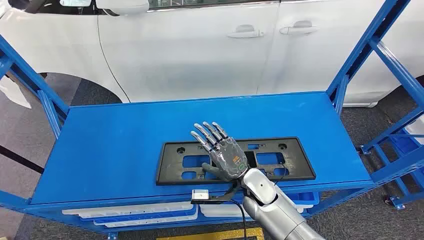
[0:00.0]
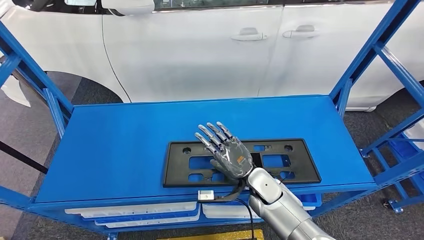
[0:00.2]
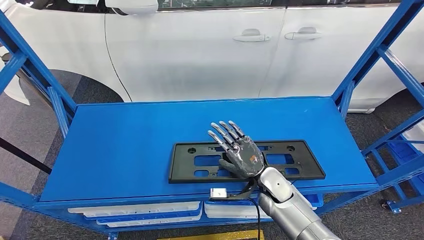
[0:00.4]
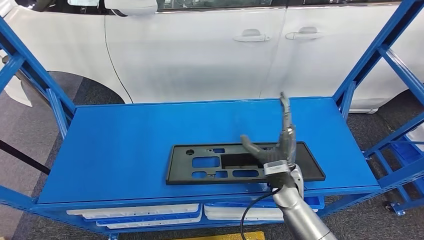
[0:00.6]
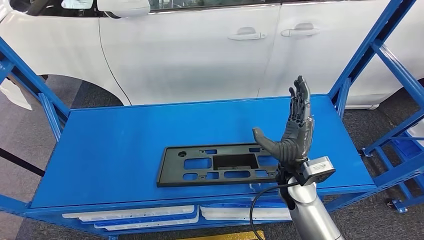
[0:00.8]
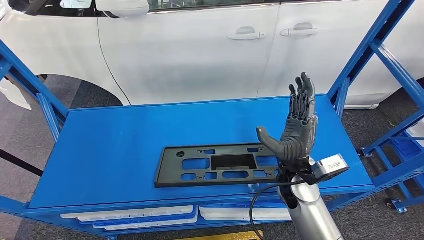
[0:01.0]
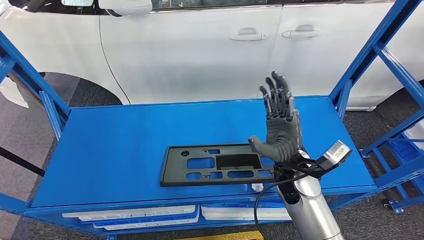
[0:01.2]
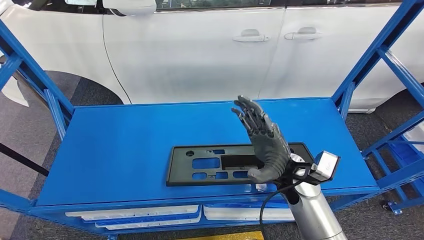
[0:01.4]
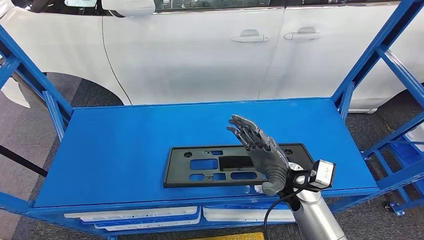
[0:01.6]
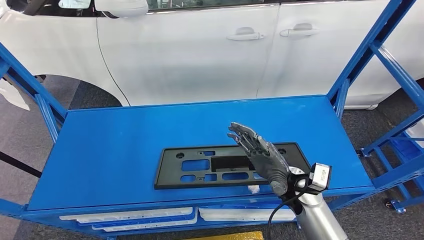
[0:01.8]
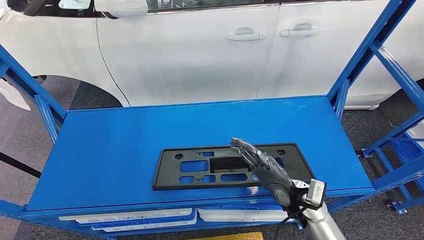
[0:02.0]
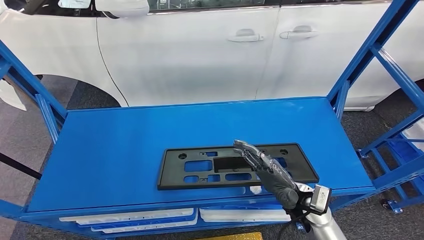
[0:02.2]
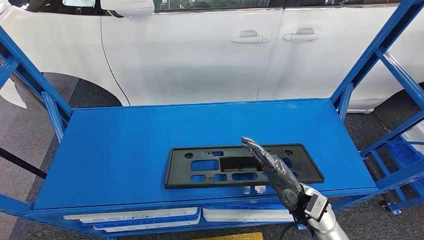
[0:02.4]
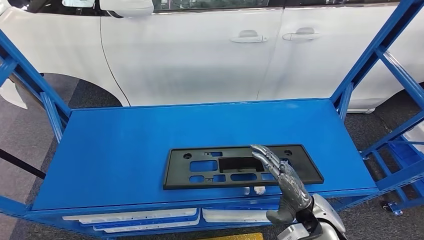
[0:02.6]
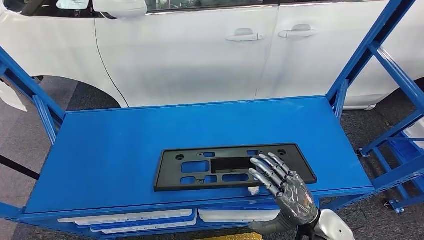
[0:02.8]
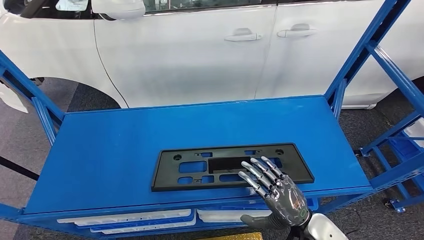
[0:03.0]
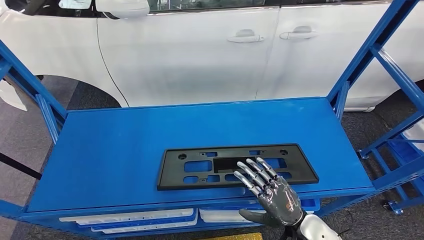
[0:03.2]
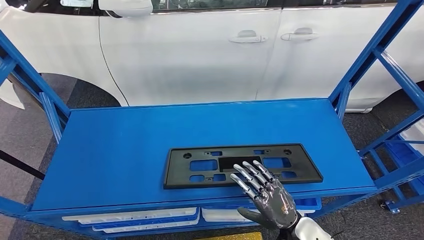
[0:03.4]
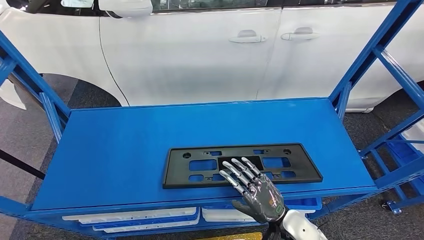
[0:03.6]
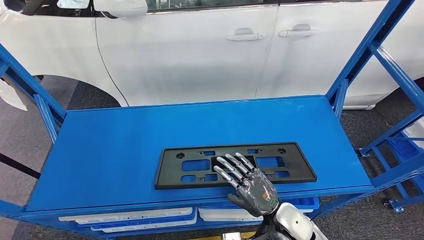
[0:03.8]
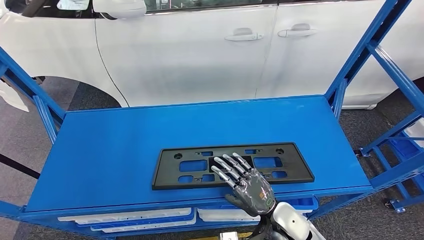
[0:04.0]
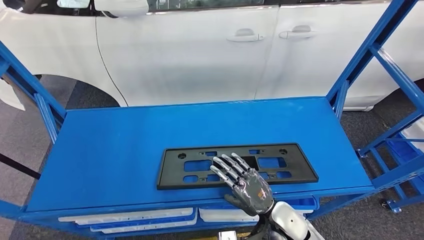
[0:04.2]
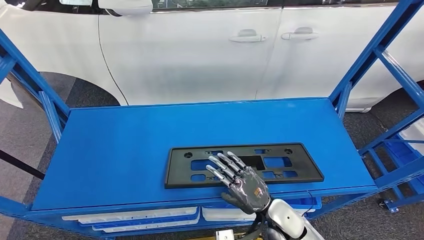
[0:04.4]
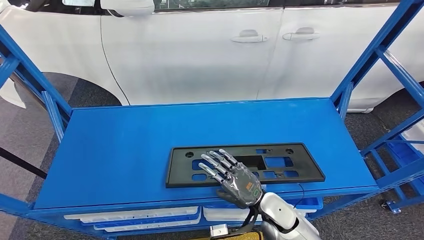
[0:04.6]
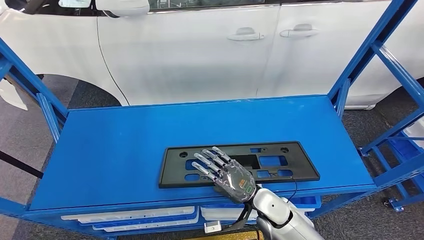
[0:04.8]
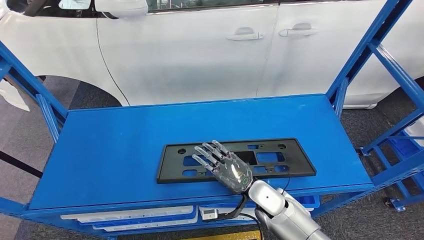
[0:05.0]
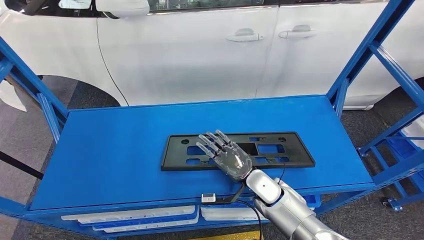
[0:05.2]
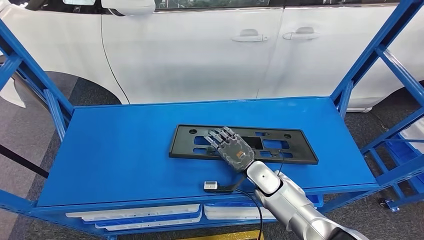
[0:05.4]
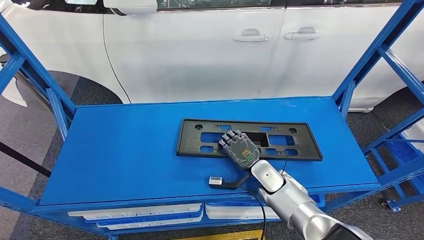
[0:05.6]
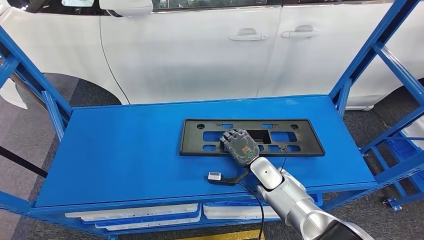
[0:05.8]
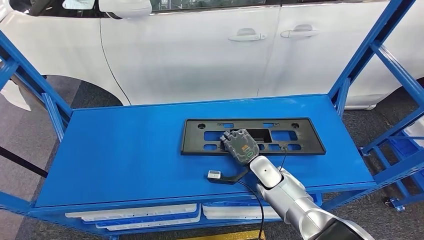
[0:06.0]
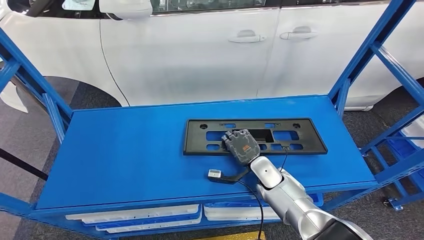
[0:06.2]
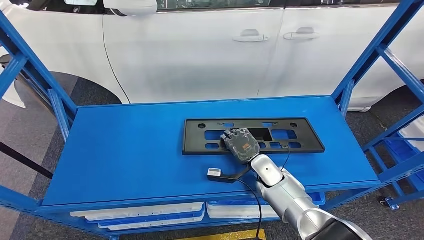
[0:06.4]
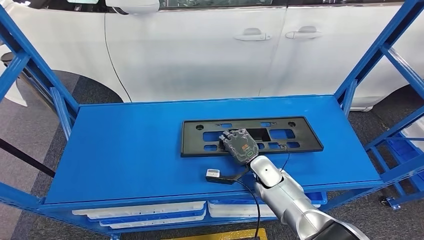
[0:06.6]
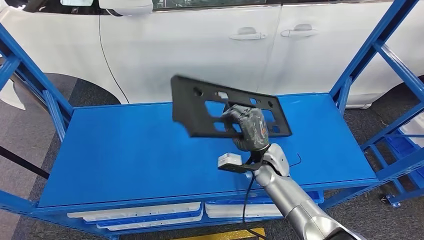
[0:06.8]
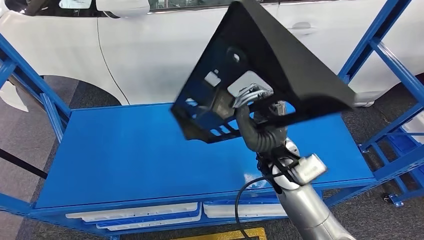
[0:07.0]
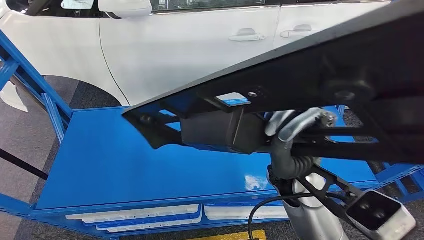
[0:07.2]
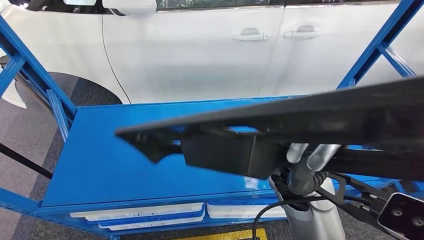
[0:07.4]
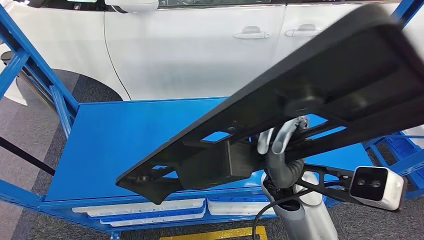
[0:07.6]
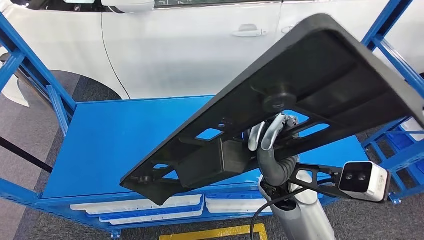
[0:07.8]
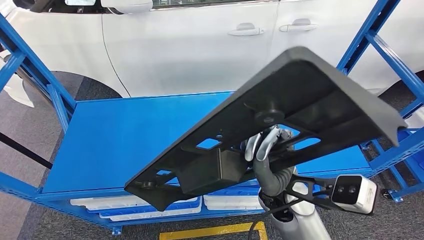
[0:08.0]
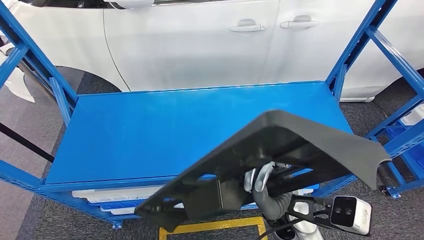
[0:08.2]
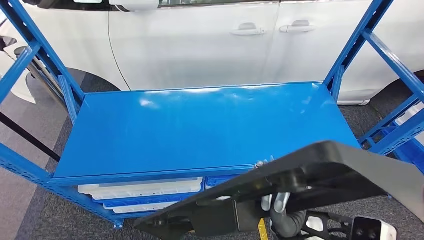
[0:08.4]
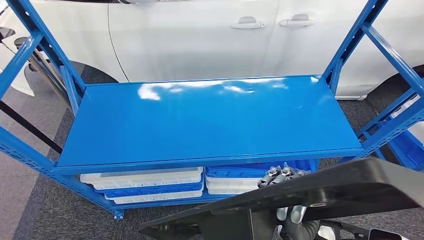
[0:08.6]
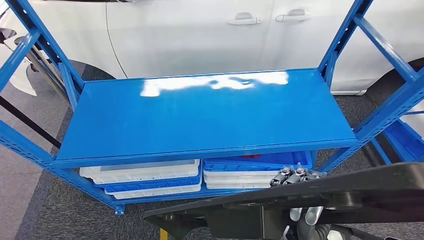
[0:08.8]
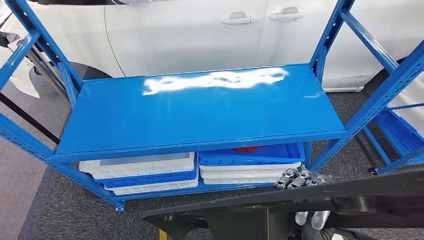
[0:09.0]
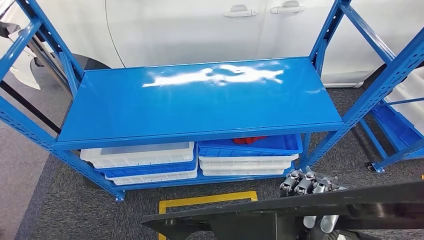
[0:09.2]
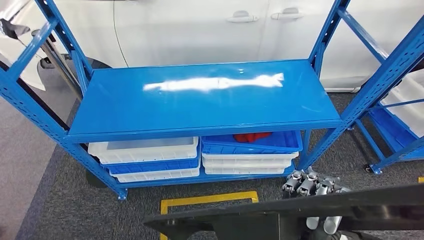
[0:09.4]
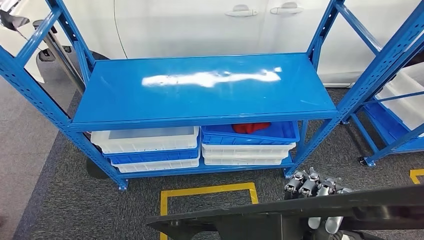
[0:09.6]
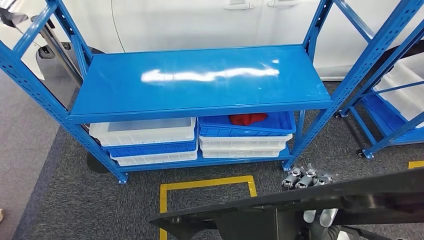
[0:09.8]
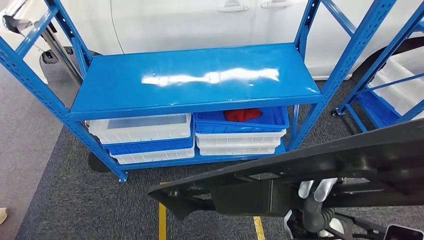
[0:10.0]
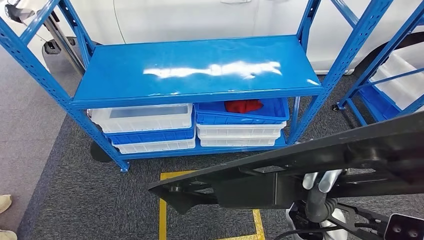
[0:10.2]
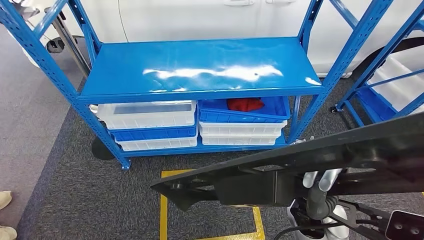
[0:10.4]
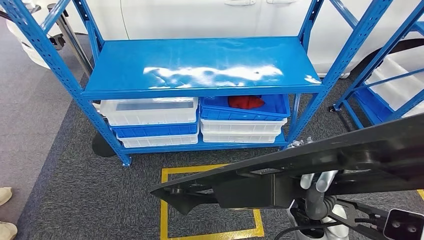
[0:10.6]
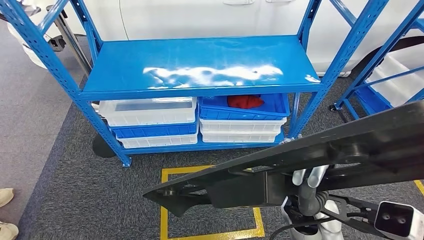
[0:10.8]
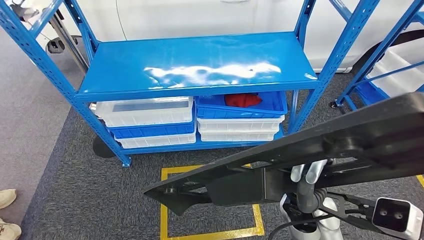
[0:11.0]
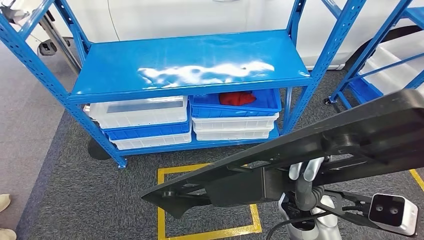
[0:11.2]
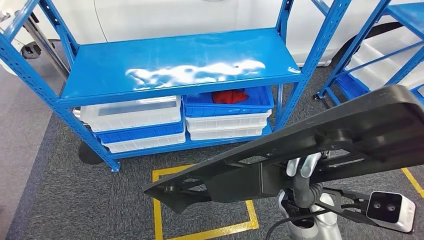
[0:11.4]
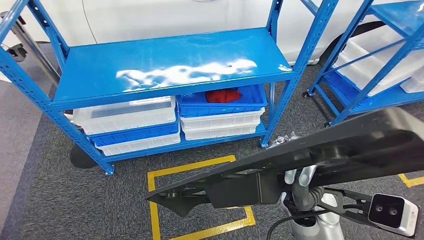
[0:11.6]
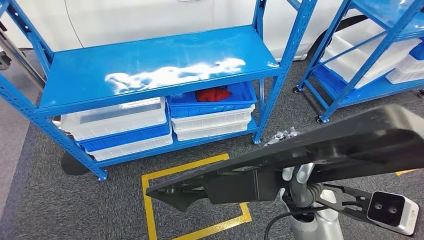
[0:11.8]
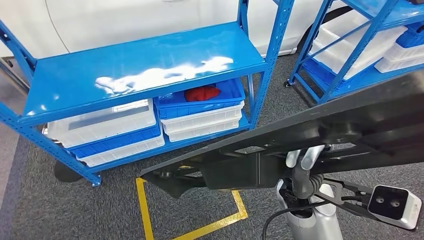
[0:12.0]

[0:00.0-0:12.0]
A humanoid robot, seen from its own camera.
Step, 0:00.0 to 0:09.0: Pick up the large material from the shelf.

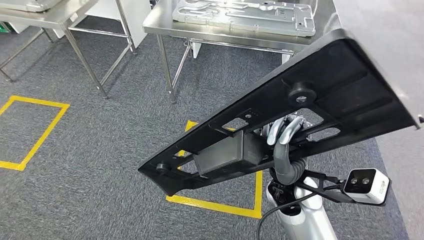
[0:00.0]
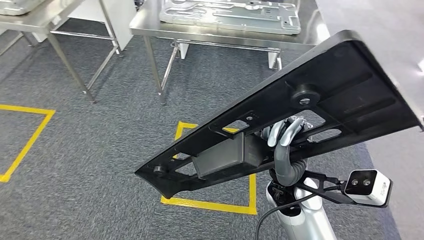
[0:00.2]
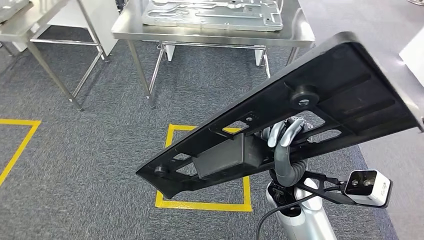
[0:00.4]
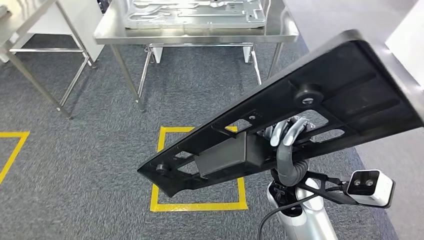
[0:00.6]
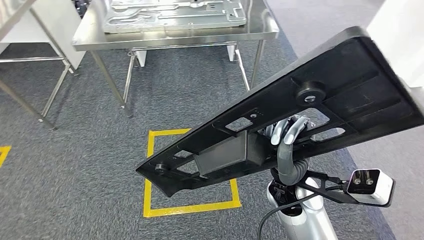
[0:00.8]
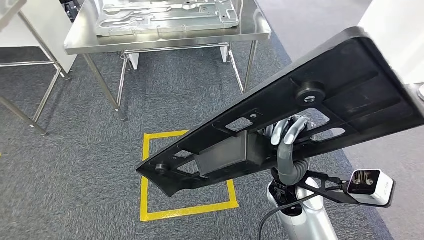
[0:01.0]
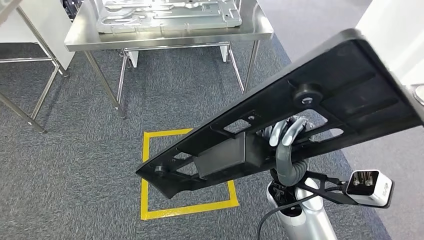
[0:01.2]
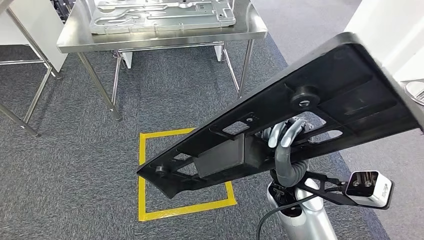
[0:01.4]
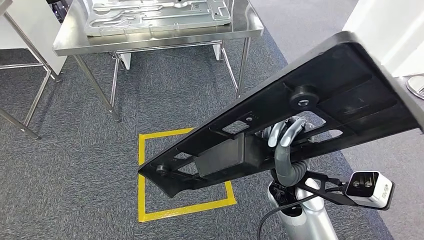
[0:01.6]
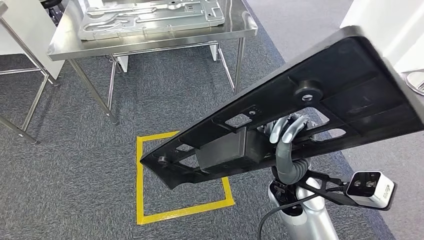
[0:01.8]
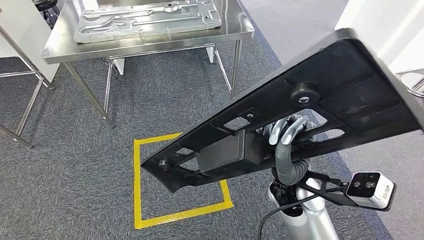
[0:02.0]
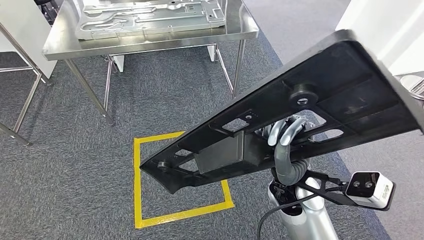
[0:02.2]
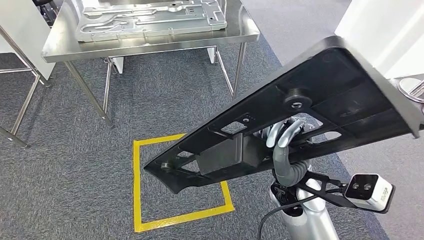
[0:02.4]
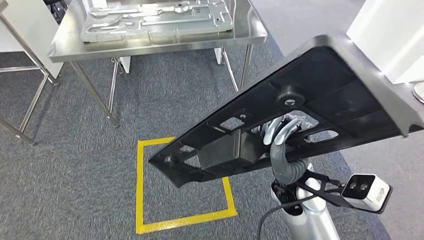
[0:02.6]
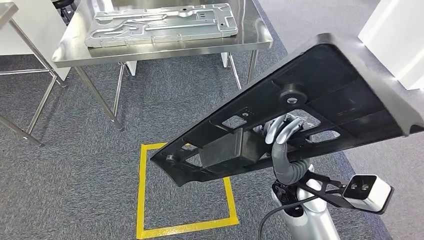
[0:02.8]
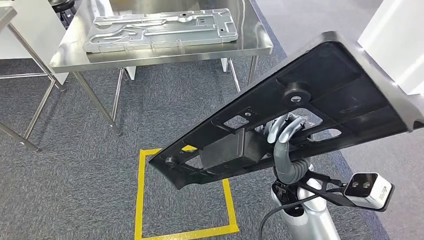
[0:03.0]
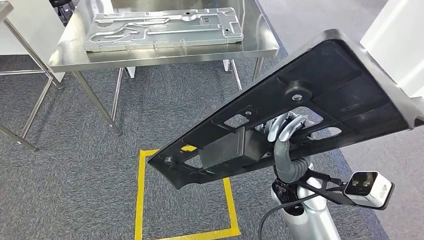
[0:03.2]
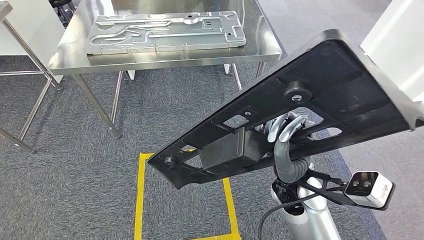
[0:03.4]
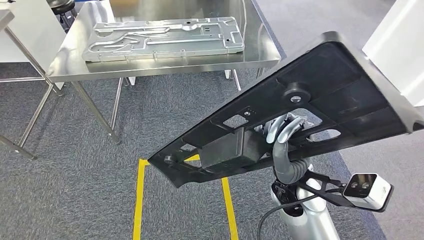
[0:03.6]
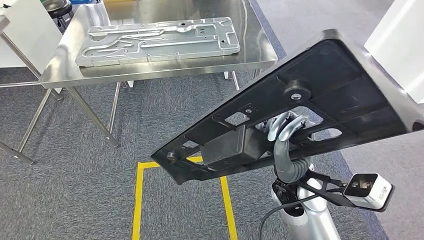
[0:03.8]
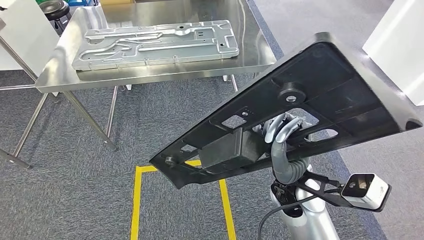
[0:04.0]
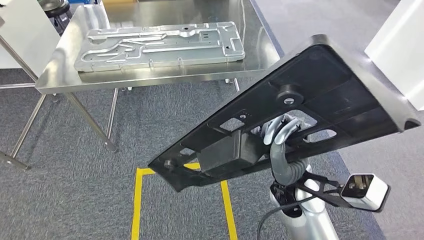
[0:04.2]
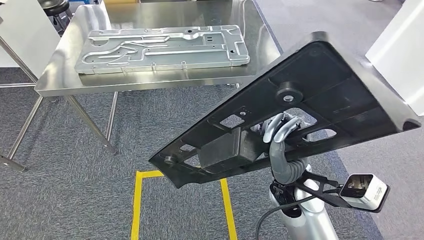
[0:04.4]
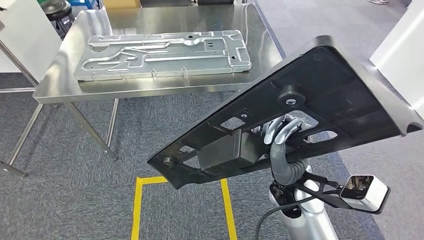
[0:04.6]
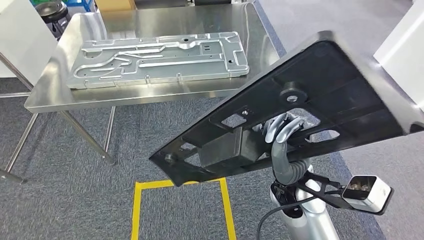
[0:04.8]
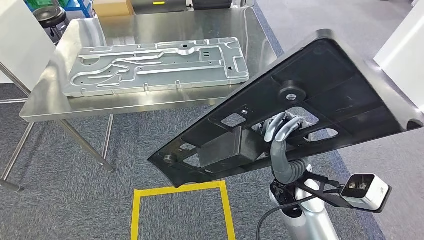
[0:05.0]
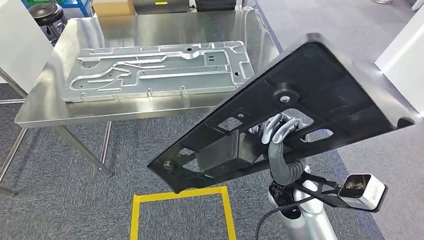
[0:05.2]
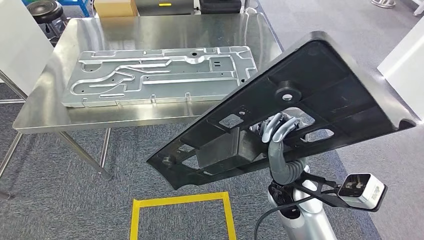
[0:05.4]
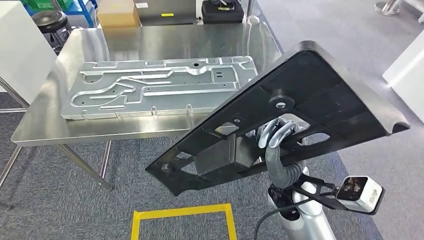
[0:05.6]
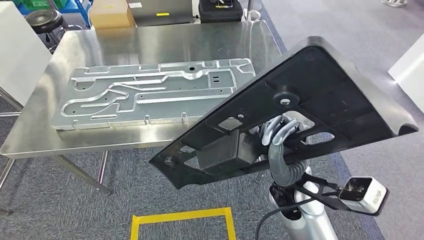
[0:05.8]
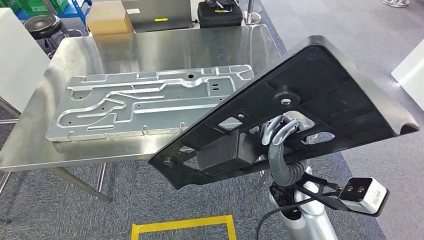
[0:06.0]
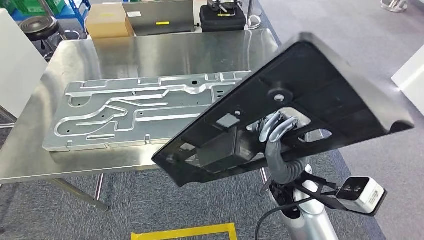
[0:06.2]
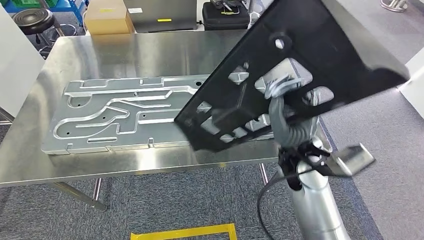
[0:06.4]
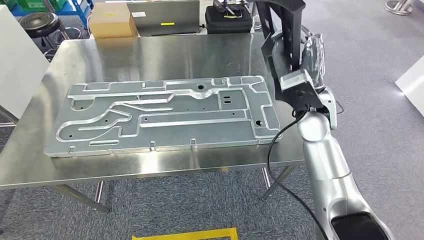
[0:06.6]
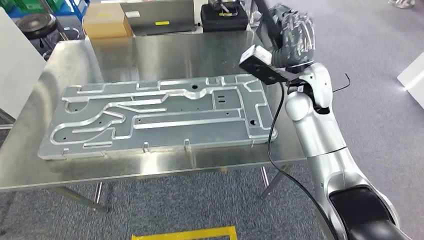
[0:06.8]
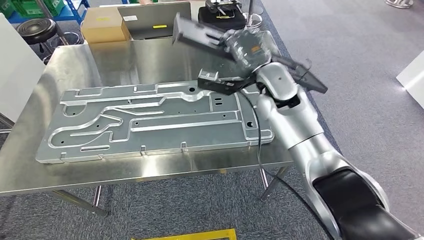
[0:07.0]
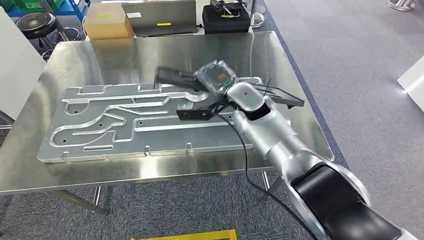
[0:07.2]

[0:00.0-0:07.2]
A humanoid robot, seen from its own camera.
Step, 0:00.0 to 0:07.0: Move the large material to the workbench.
